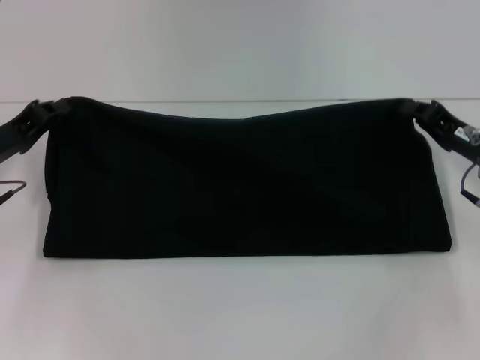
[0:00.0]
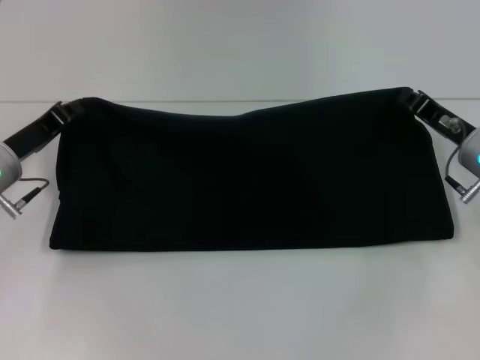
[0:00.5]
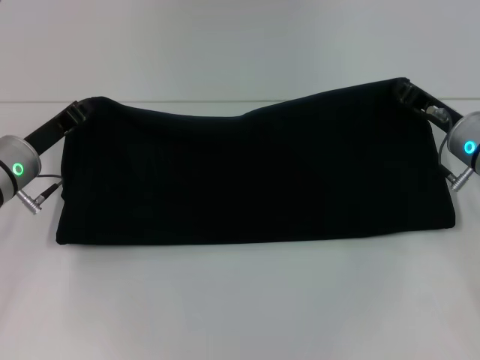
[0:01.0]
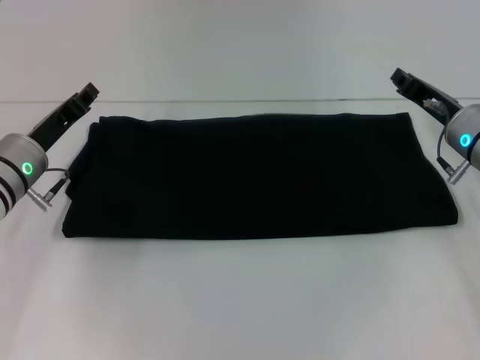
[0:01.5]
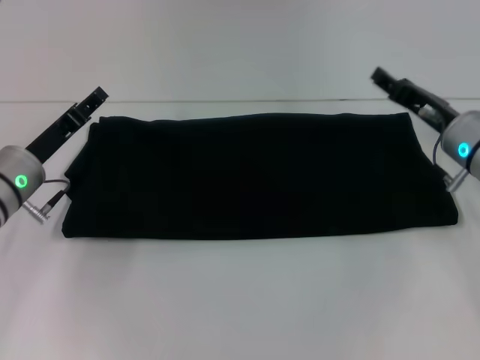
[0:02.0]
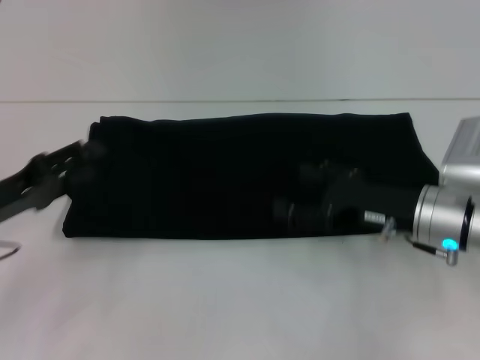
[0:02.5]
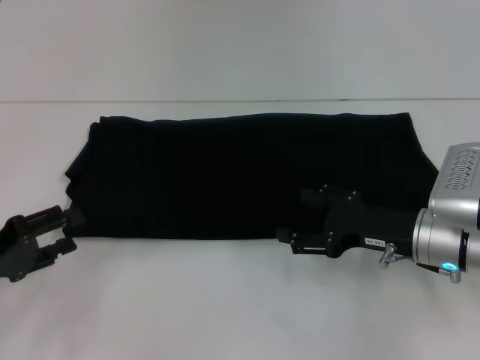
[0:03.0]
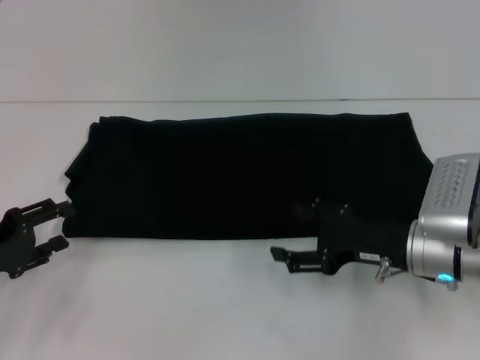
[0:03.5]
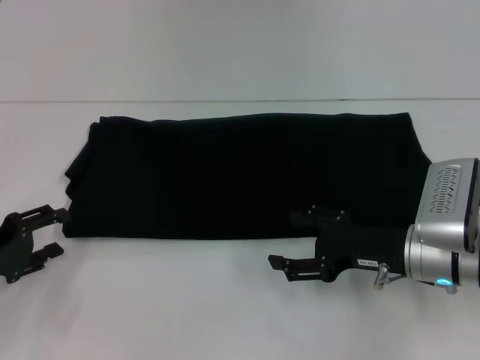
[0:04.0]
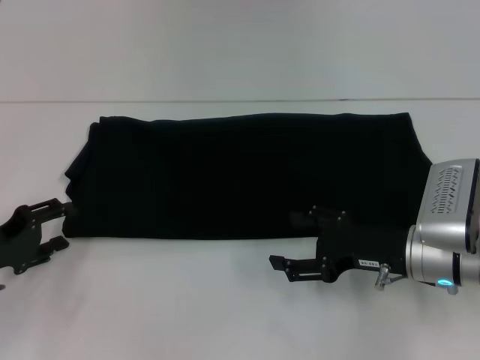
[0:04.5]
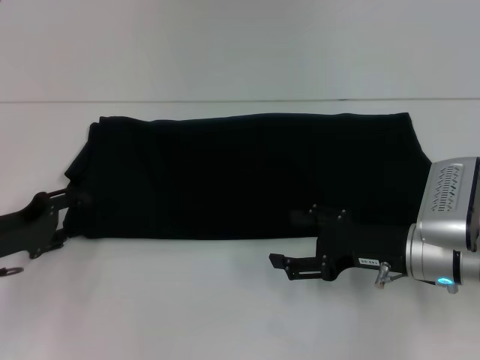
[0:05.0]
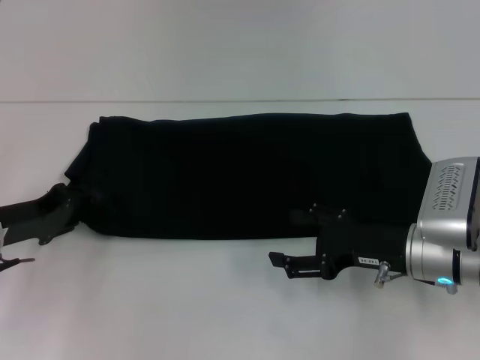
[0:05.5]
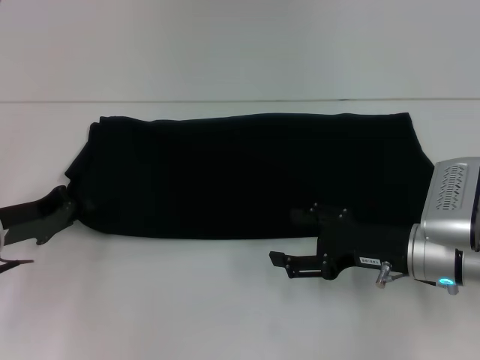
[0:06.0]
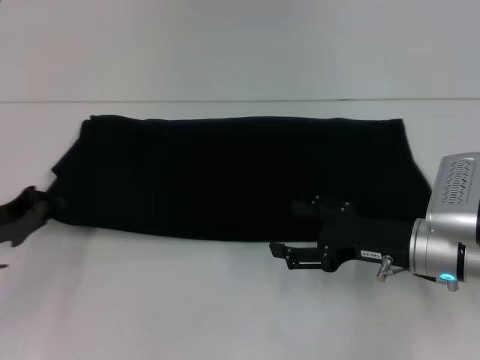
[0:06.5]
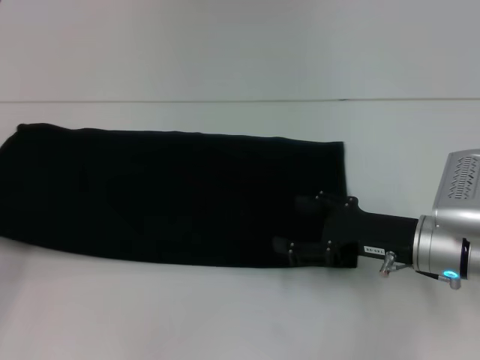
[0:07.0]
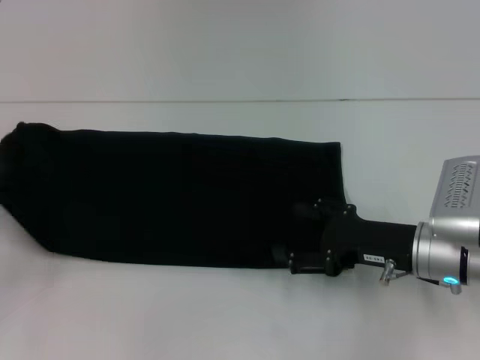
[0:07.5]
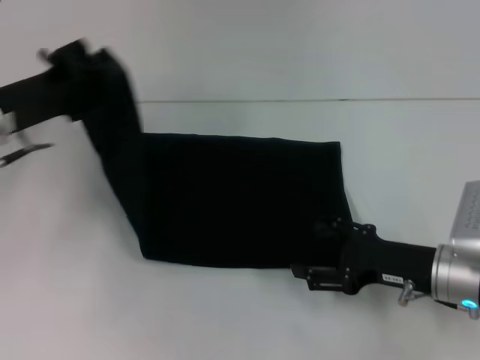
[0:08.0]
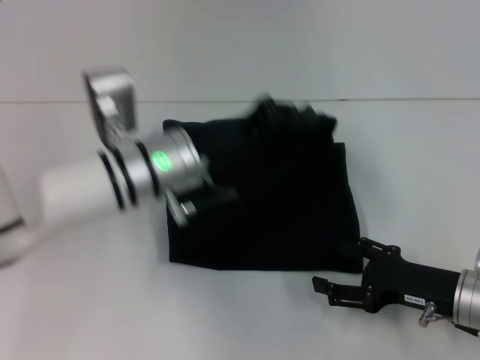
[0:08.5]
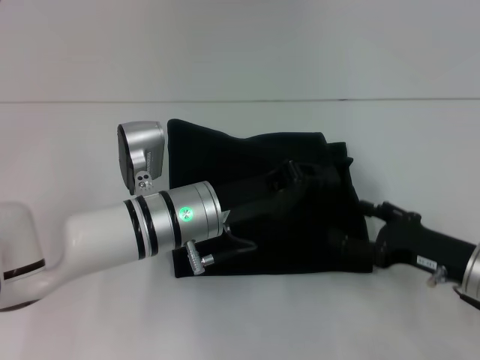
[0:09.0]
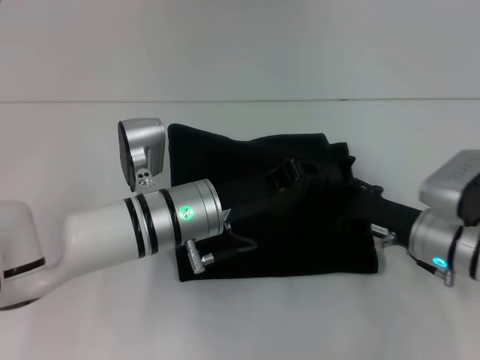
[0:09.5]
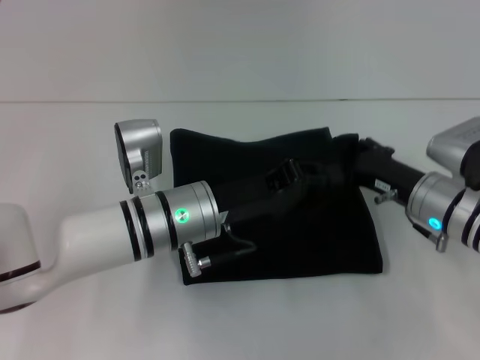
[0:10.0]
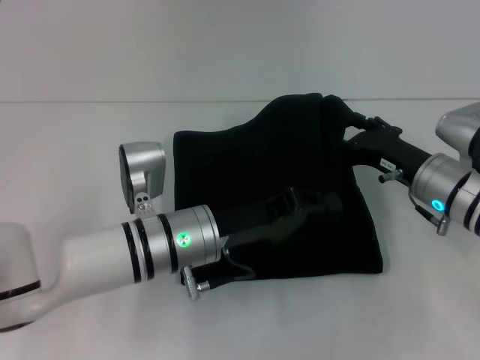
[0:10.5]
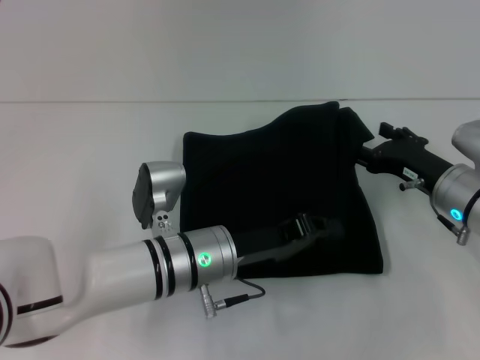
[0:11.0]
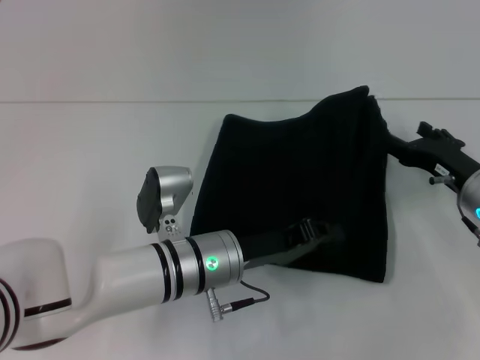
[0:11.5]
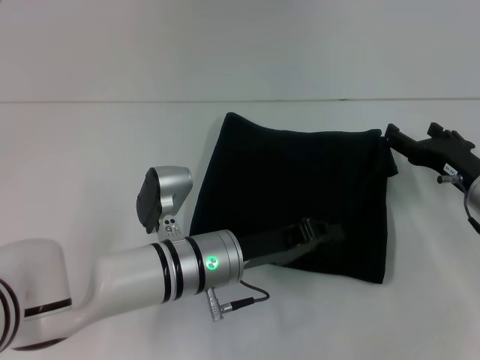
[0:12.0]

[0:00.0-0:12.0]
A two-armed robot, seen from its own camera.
Step, 0:00.0 to 0:02.0: Fold the clothes with your right hand.
0:00.0 to 0:02.0: The right gripper opens, while the left gripper travels to the right by about 5 cm, and opens its fingers.
0:02.0 to 0:04.0: The left gripper shifts approximately 15 cm backward and to the left. The right gripper shifts about 10 cm backward, and opens its fingers.
0:04.0 to 0:06.0: The left gripper moves forward, approximately 5 cm, and closes.
0:06.0 to 0:08.0: The left gripper moves upward, about 10 cm, and reaches roughly 10 cm to the left, then returns.
0:08.0 to 0:10.0: The right gripper is displaced forward by about 5 cm. Meanwhile the left gripper heads to the right, covering some 20 cm.
0:10.0 to 0:12.0: The left gripper shifts by roughly 5 cm; the right gripper moves to the right, roughly 5 cm.

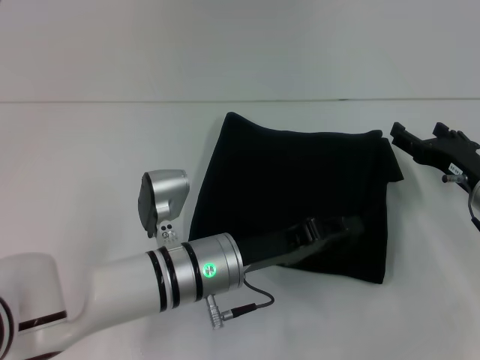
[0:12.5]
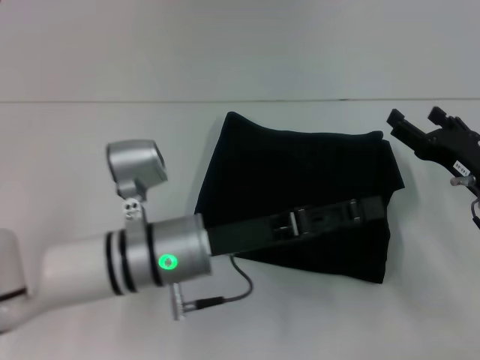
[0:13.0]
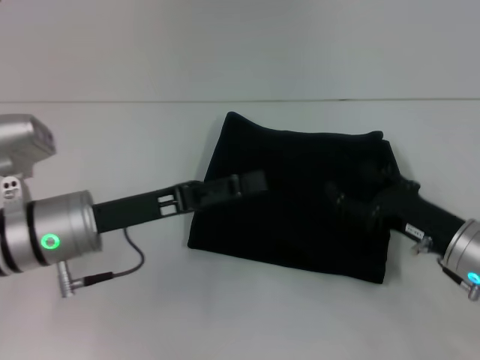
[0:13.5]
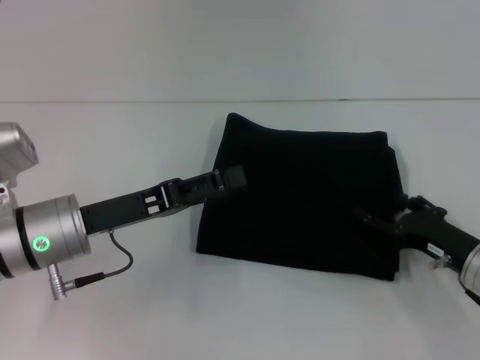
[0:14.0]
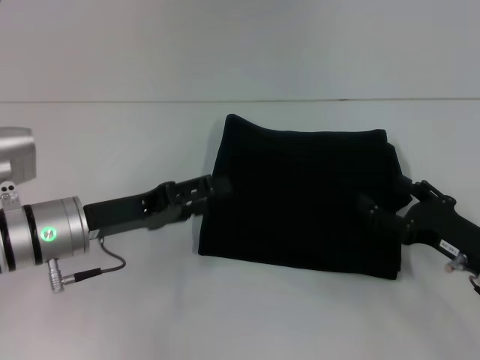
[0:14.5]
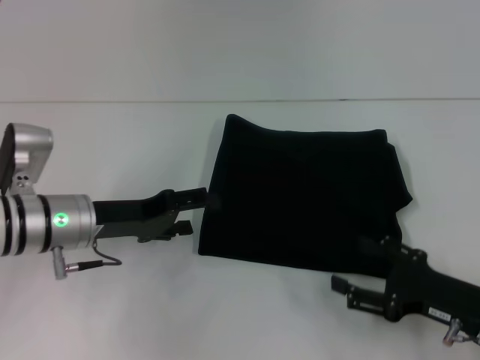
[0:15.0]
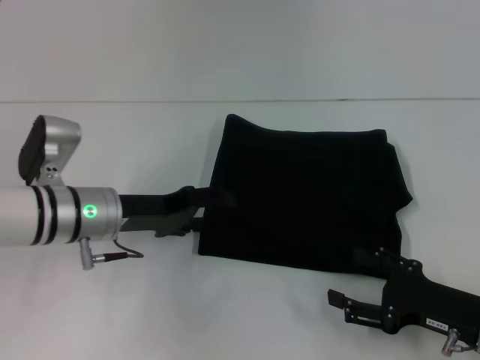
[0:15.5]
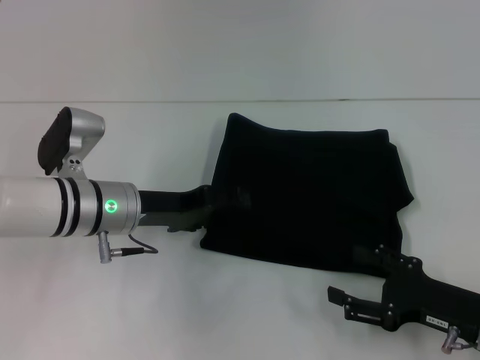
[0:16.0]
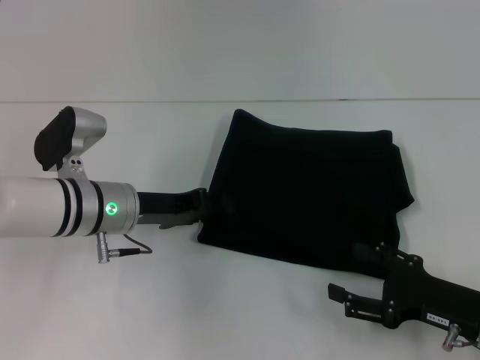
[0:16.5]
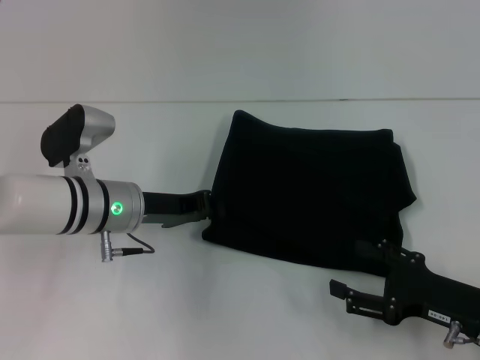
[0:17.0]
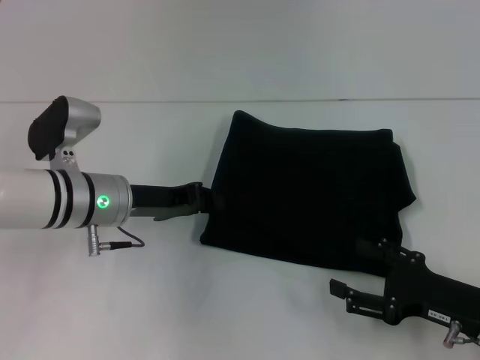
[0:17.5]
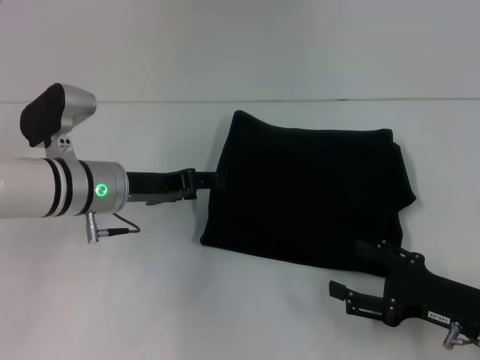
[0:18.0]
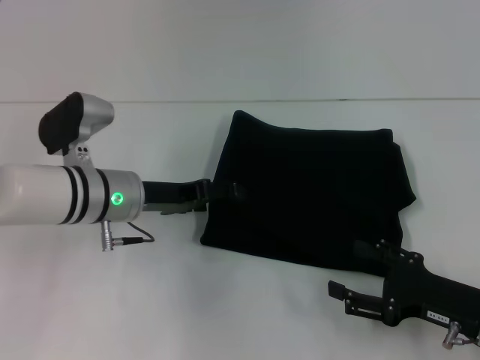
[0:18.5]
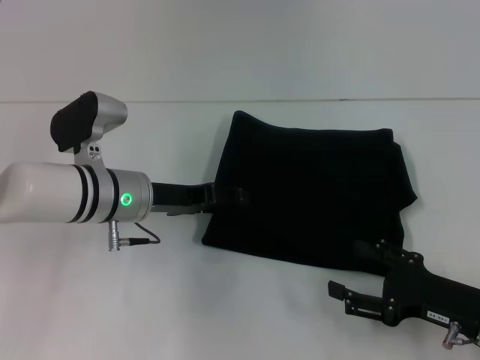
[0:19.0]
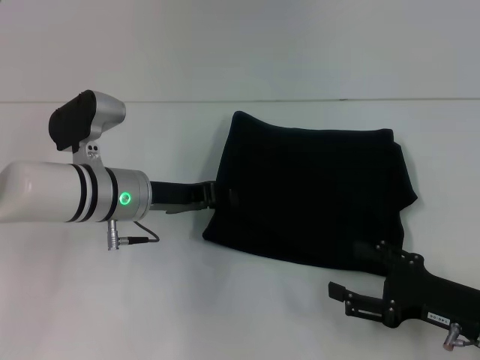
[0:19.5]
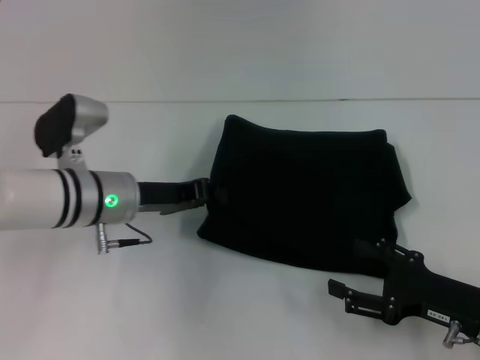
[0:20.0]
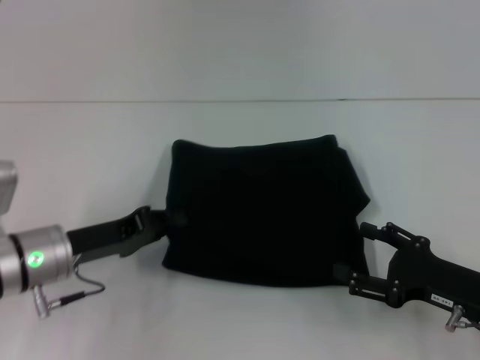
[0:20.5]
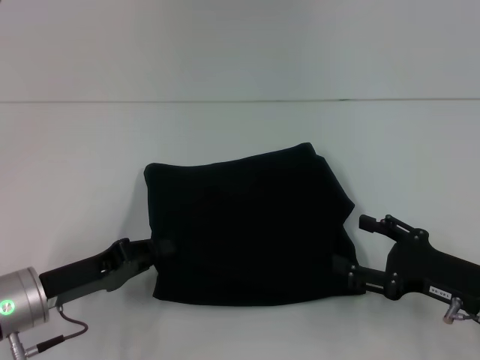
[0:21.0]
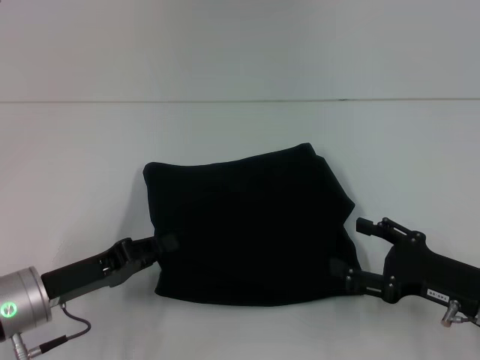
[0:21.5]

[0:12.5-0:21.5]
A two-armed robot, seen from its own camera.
Step, 0:12.5 to 0:14.5: Fold the clothes with your left hand.
0:12.5 to 0:14.5: The left gripper heads to the left, covering some 15 cm, and opens its fingers. The right gripper heads backward, covering roughly 10 cm.
0:14.5 to 0:17.0: The left gripper shifts by about 5 cm, and closes up.
0:17.0 to 0:19.5: The grippers move only a little.
0:19.5 to 0:21.5: The left gripper shifts roughly 15 cm backward and to the left, and closes its fingers.

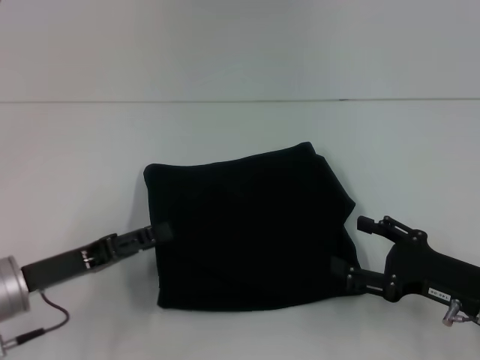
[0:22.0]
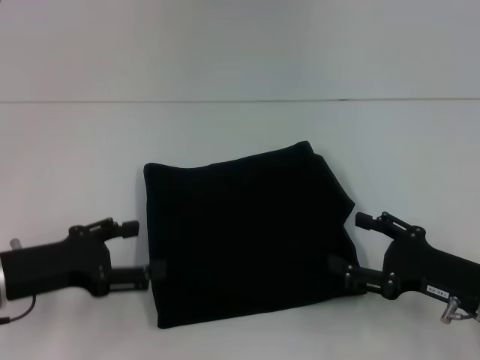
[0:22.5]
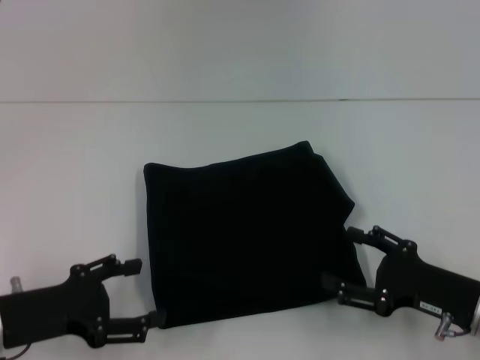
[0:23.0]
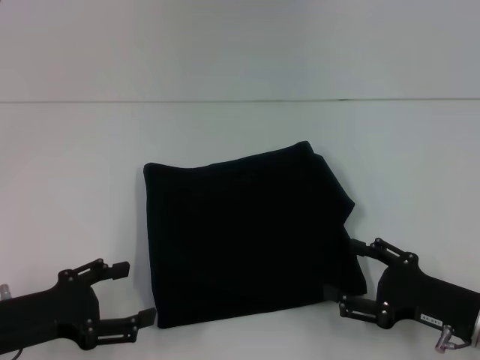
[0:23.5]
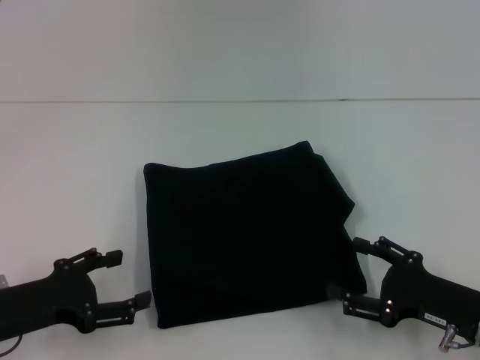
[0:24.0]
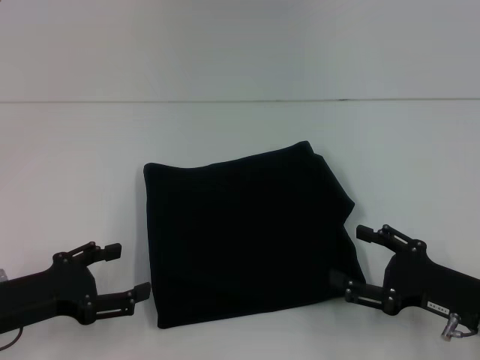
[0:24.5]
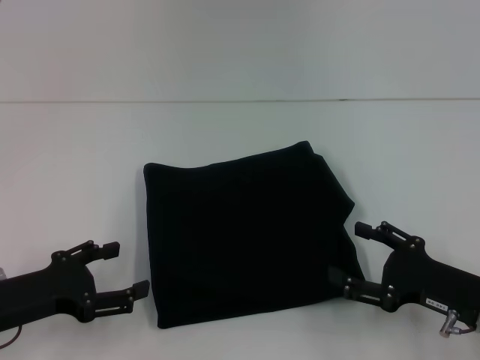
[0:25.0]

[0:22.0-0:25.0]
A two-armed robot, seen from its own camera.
0:22.0 to 0:23.5: The left gripper opens its fingers.
0:23.5 to 0:25.0: The grippers move only a little.

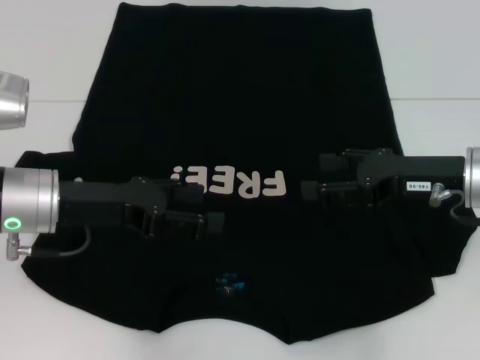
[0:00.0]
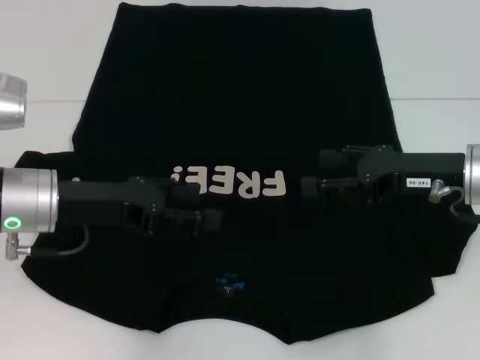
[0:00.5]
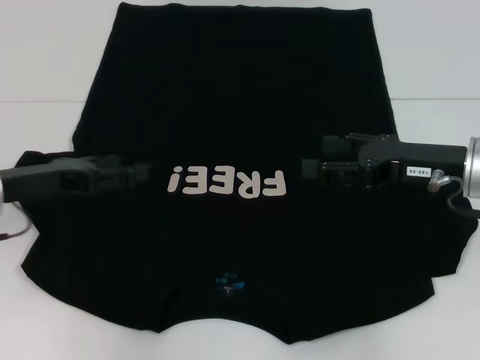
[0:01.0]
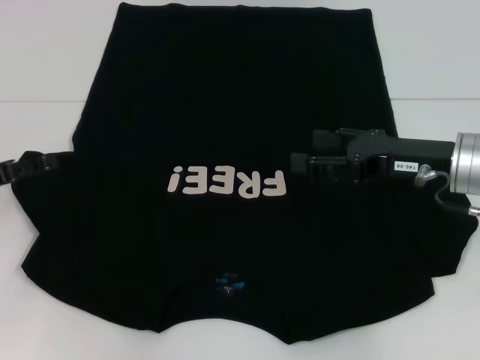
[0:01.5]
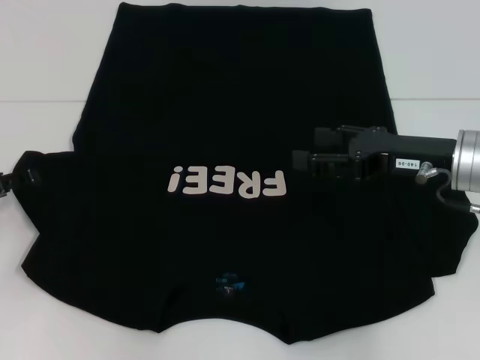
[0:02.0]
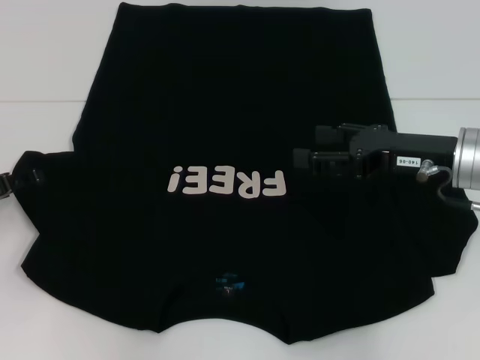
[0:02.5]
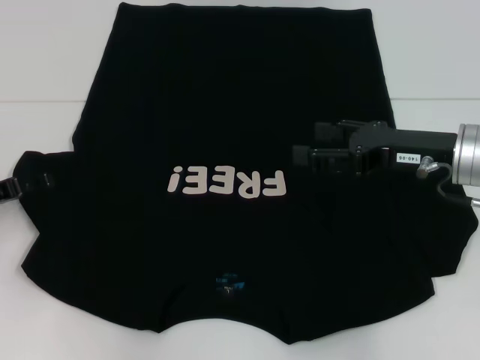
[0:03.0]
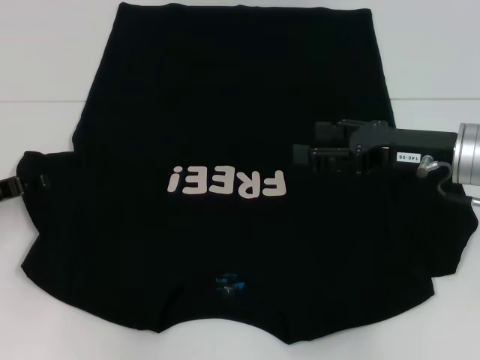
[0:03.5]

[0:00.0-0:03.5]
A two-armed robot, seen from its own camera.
0:00.0 to 0:02.0: The left gripper is displaced to the left by roughly 15 cm.
0:02.0 to 0:03.5: There are only small adjustments of the grippers.
